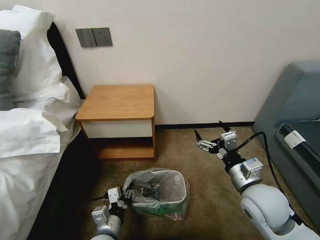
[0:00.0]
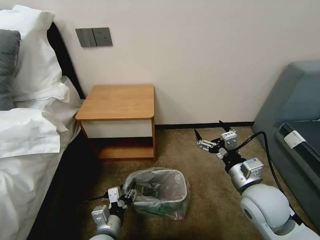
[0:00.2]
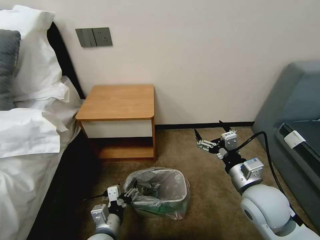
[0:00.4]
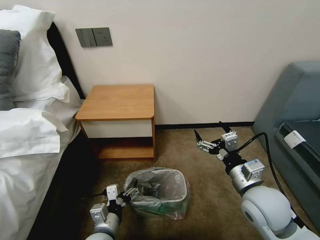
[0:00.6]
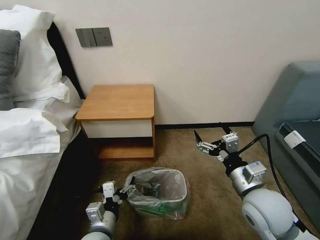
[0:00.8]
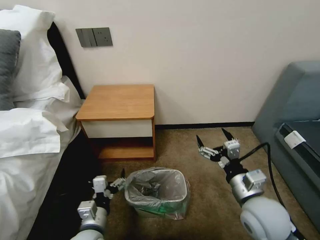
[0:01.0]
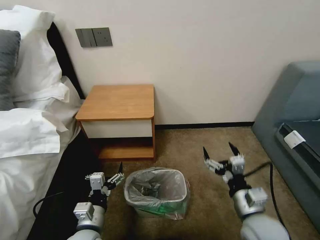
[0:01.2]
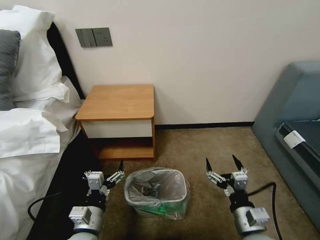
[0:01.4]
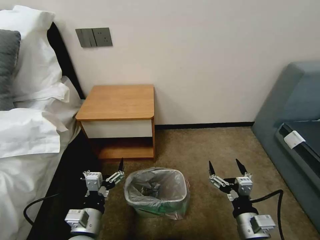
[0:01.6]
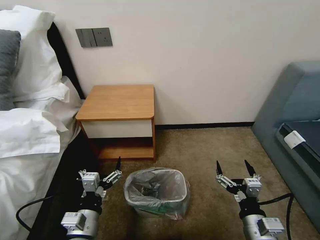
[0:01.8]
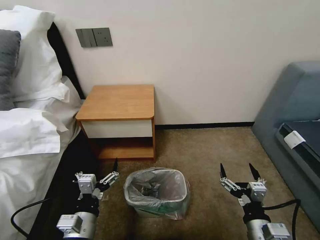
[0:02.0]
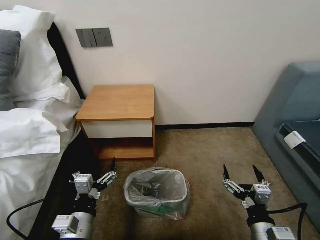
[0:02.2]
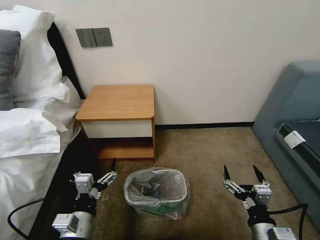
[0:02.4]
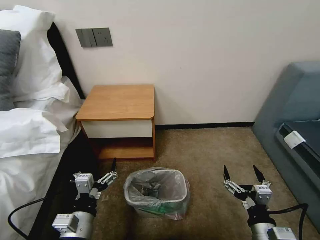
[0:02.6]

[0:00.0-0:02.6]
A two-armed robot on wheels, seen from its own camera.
Task of the whole recording: Pick up the garbage bag from the table and place it over the trash can.
0:00.0 to 0:01.2: The right gripper ends up about 5 cm from where it was. Meanwhile the left gripper opens its fingers.
0:01.2 to 0:02.6: The left gripper moves some 5 cm. The right gripper goes roughly 10 cm backward.

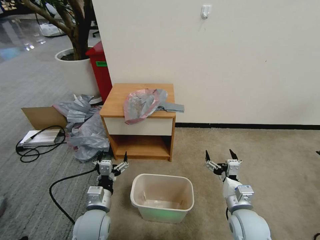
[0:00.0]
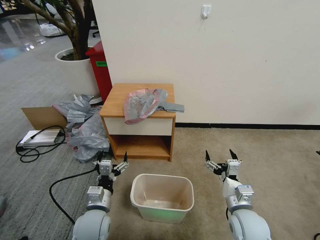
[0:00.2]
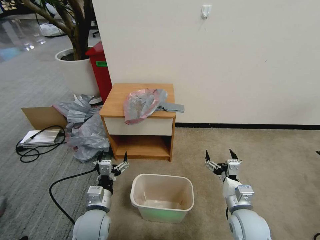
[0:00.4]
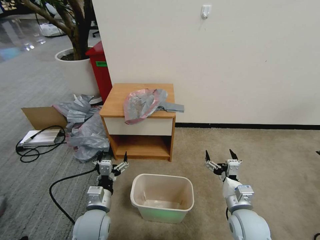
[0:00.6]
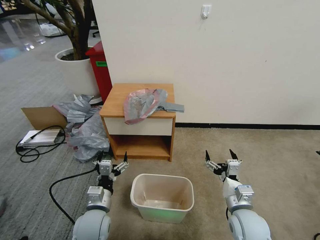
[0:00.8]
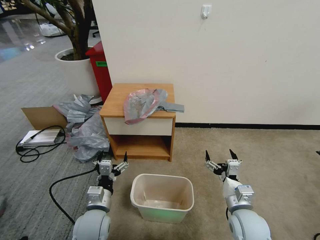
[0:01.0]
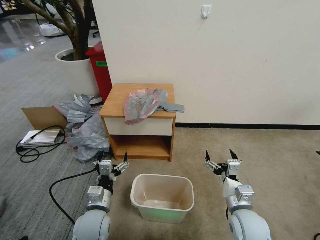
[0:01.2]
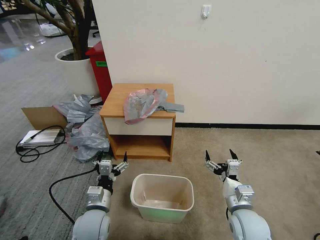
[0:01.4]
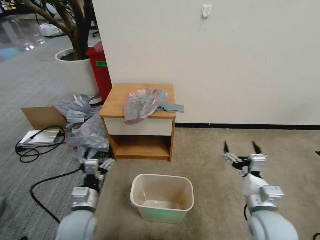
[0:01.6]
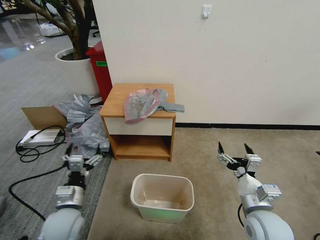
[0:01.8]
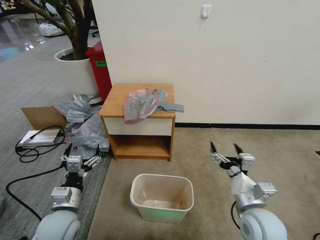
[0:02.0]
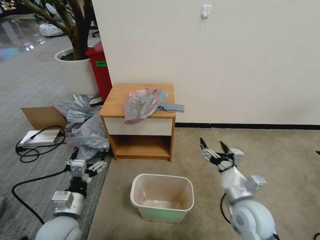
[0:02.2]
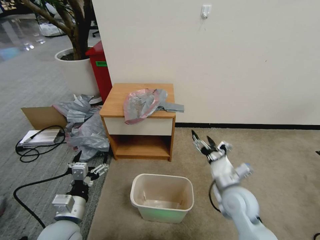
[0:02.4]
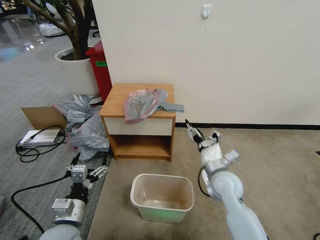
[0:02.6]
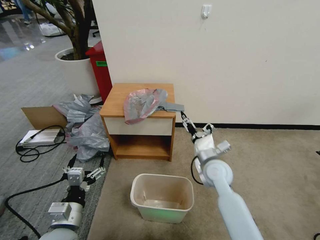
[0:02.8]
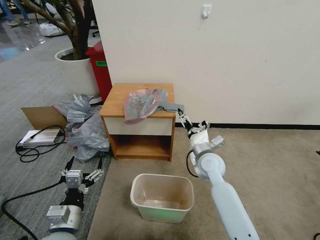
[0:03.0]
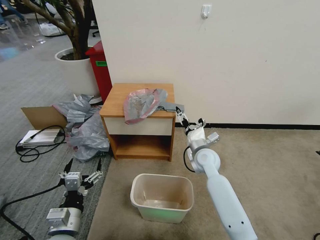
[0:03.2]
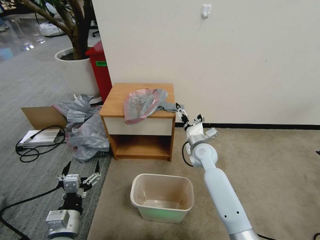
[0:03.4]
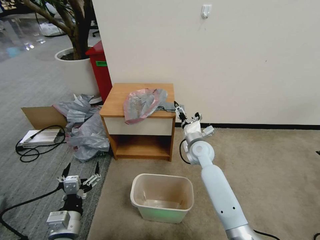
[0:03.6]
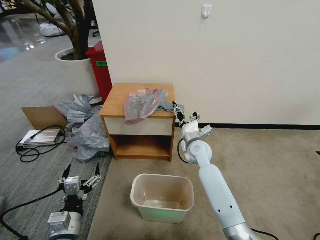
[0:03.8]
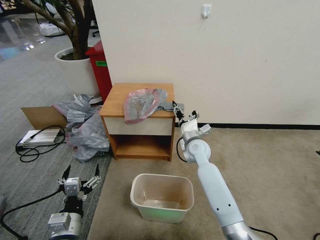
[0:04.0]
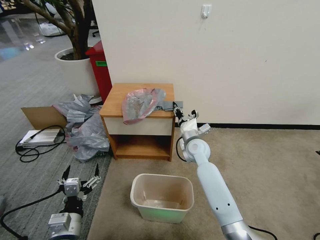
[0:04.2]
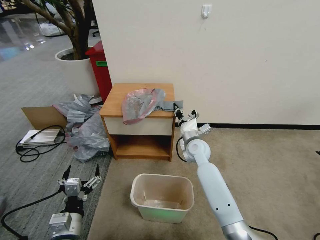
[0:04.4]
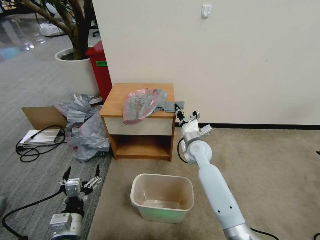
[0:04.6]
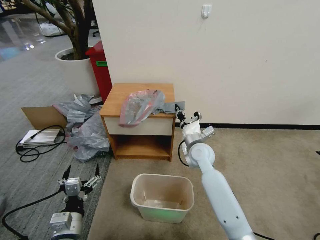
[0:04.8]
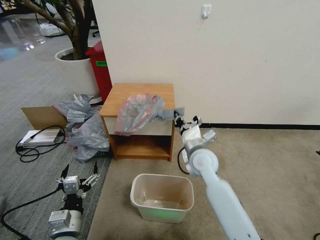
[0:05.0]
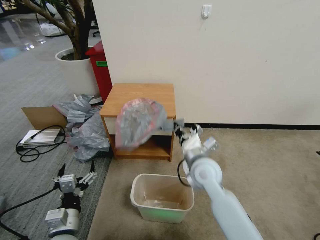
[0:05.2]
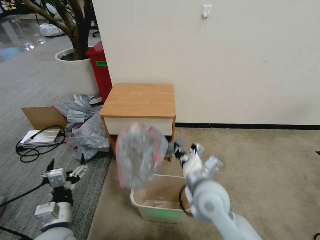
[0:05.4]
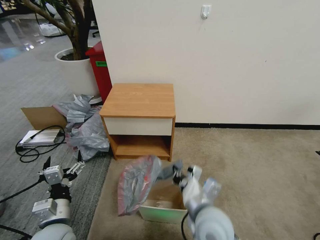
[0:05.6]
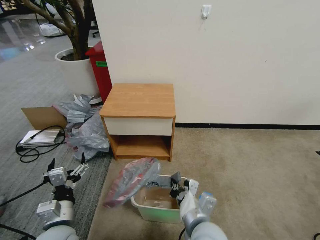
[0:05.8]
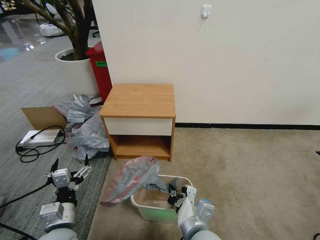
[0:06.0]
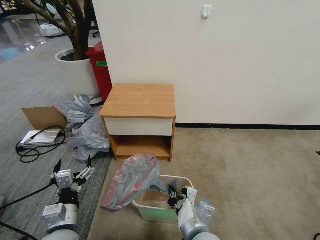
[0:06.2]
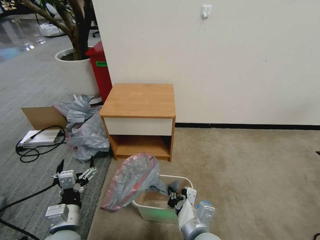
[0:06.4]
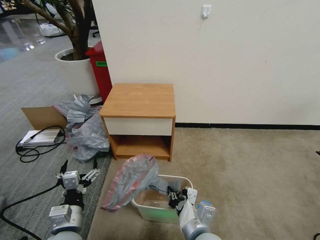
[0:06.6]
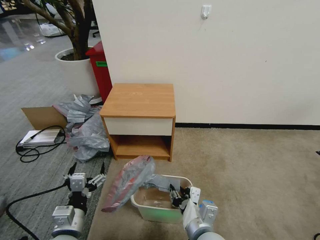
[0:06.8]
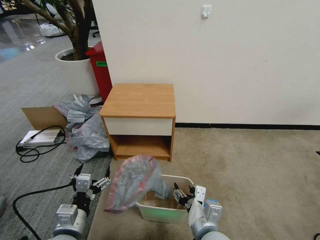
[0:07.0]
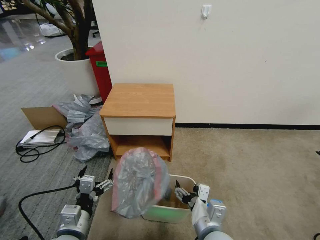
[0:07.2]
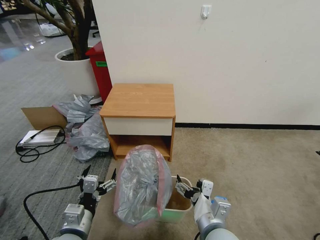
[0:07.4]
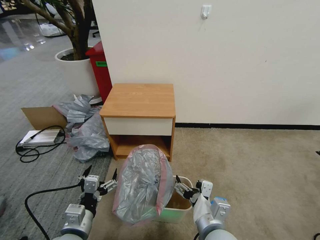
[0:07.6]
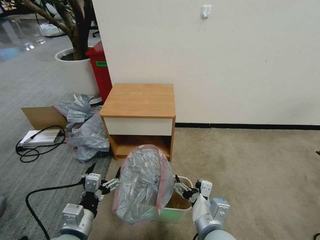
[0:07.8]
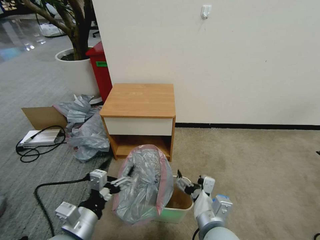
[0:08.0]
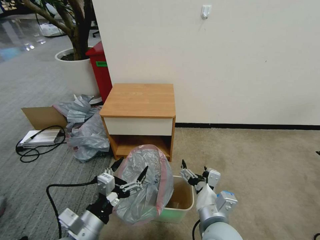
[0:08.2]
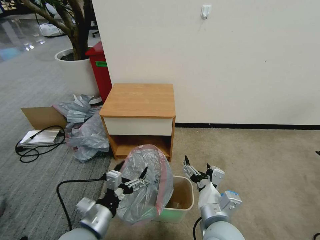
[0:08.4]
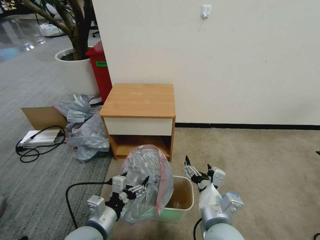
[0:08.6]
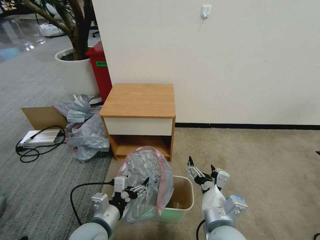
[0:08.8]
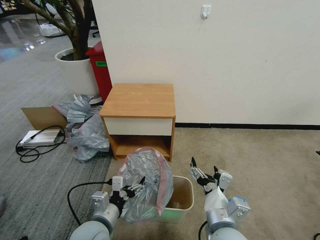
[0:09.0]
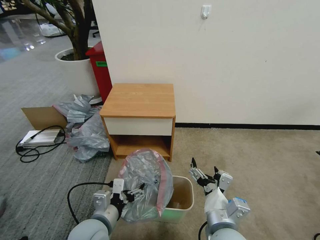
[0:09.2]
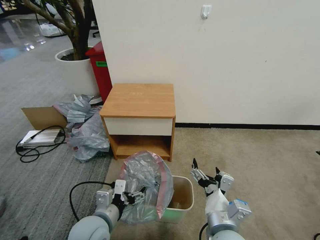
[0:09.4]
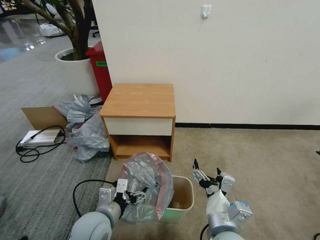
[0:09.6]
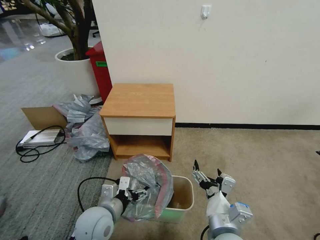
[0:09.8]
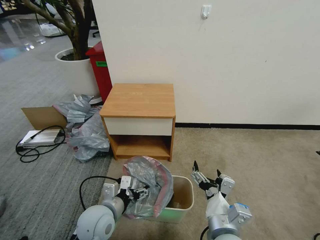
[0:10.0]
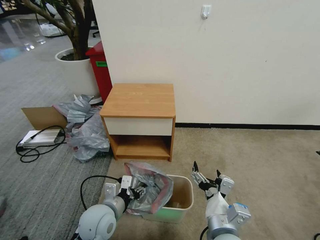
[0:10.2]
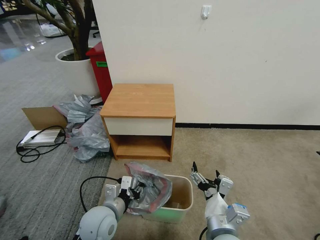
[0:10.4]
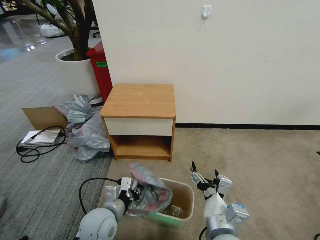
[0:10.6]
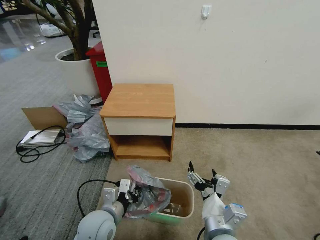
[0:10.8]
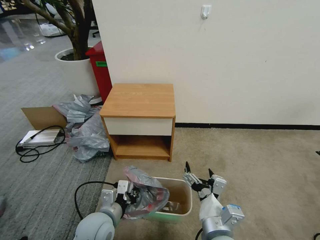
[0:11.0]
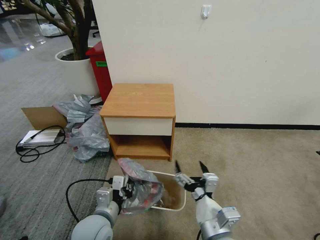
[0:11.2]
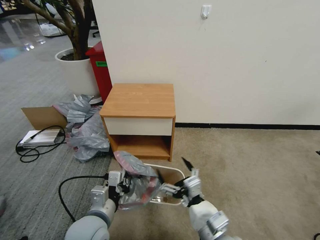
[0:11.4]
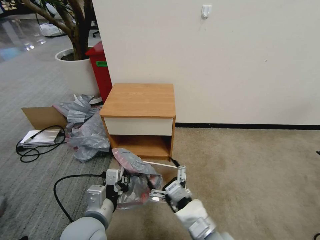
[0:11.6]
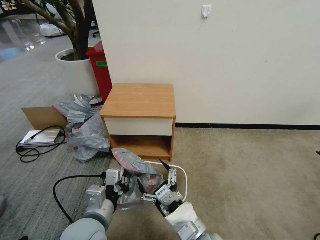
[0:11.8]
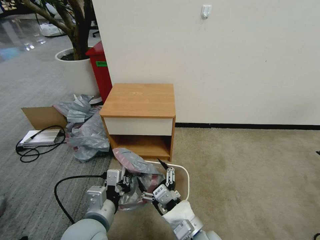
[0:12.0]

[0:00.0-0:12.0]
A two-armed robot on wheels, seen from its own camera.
Task of the whole recording: Pick up the garbage bag from the table and place it over the trash can.
0:01.6 to 0:03.0: The right gripper is displaced forward and to the left by approximately 20 cm; the left gripper heads backward, covering approximately 5 cm.
0:03.0 to 0:04.4: The right gripper goes roughly 5 cm forward, and closes.
0:04.4 to 0:06.0: The right gripper shifts about 30 cm backward.
0:06.0 to 0:07.6: The right gripper opens up.
0:07.6 to 0:09.0: The left gripper moves to the right, some 5 cm.
0:09.0 to 0:10.4: The left gripper closes its fingers.
0:10.4 to 0:12.0: The left gripper travels upward by some 10 cm, and closes its fingers, while the right gripper changes place by about 5 cm.

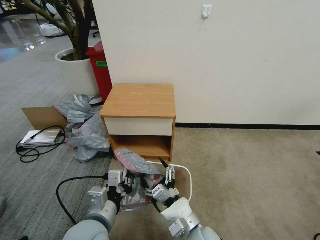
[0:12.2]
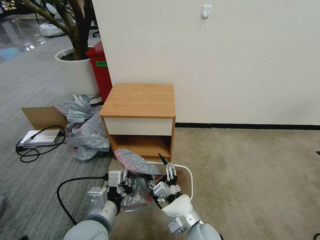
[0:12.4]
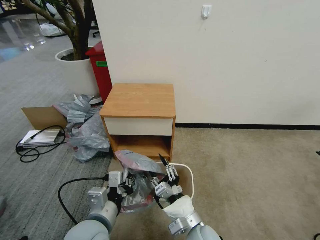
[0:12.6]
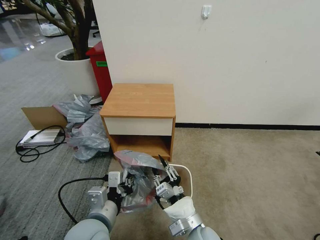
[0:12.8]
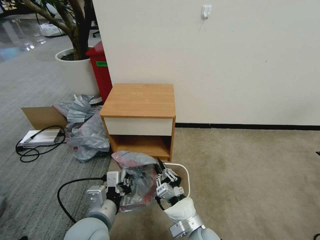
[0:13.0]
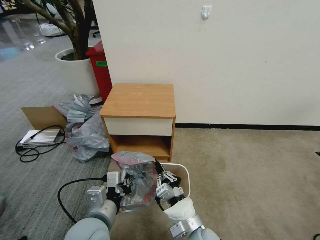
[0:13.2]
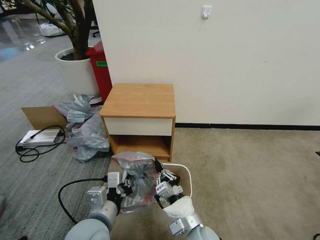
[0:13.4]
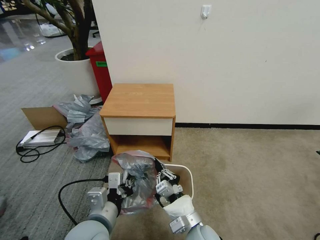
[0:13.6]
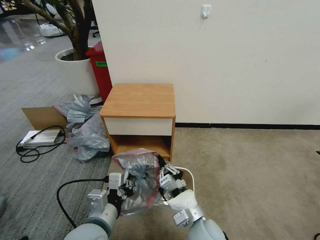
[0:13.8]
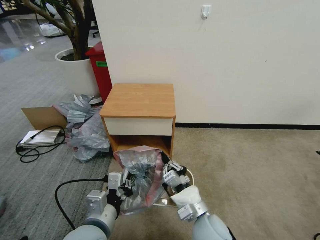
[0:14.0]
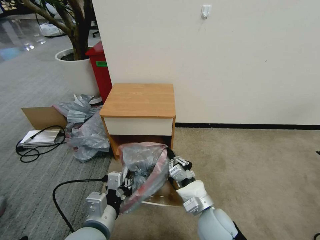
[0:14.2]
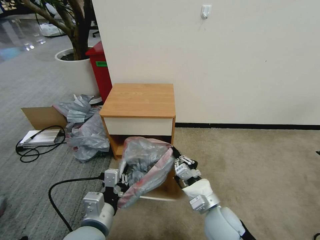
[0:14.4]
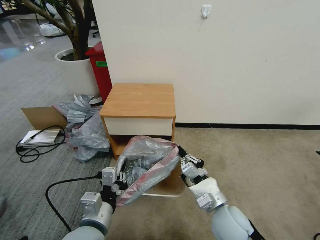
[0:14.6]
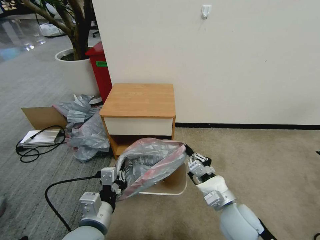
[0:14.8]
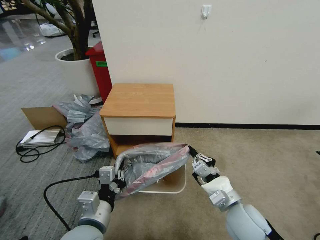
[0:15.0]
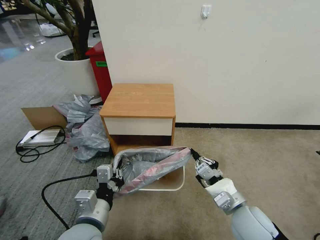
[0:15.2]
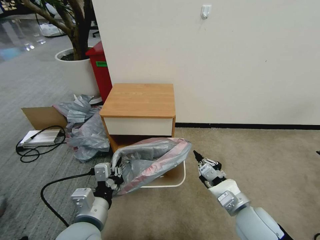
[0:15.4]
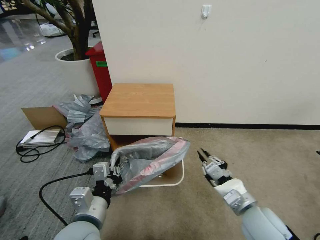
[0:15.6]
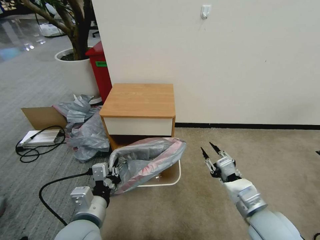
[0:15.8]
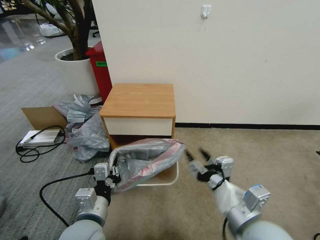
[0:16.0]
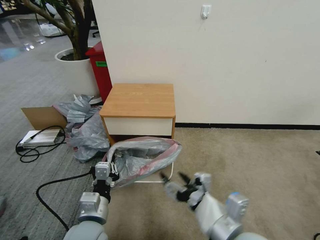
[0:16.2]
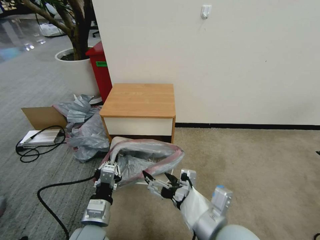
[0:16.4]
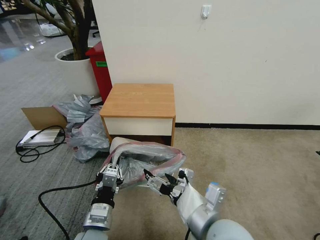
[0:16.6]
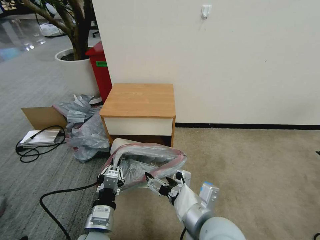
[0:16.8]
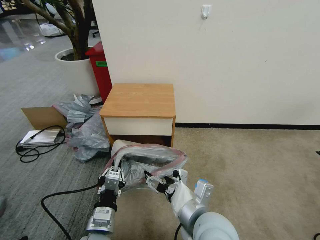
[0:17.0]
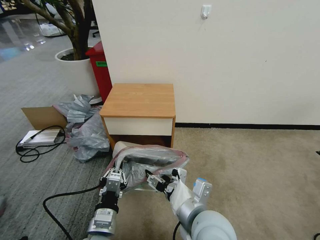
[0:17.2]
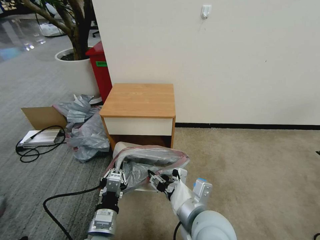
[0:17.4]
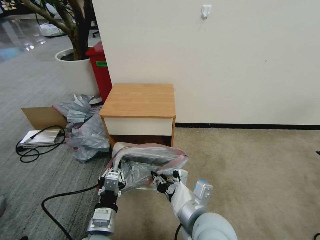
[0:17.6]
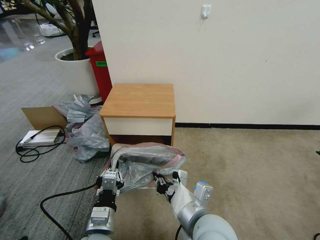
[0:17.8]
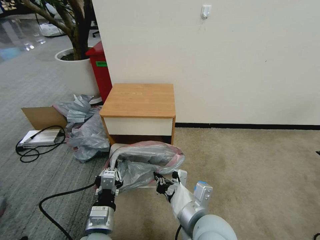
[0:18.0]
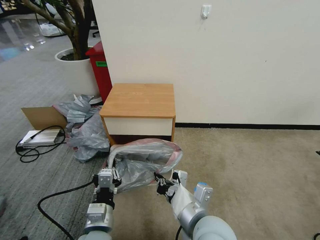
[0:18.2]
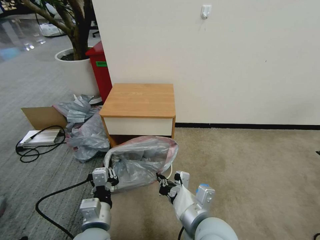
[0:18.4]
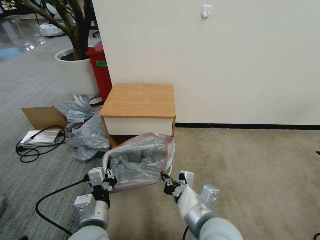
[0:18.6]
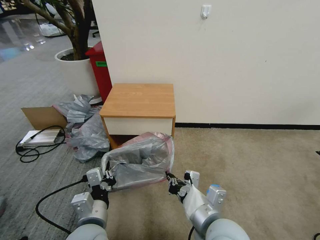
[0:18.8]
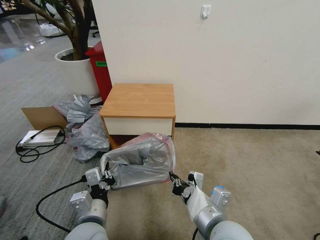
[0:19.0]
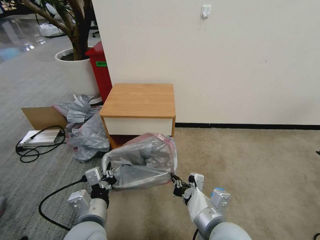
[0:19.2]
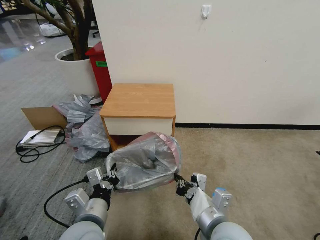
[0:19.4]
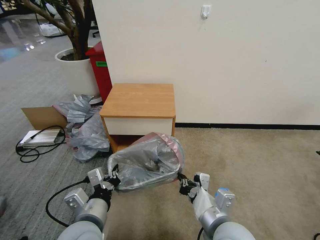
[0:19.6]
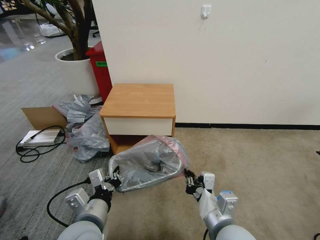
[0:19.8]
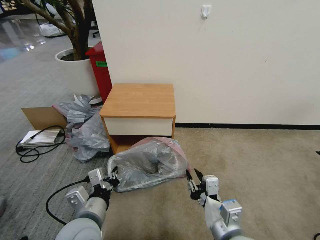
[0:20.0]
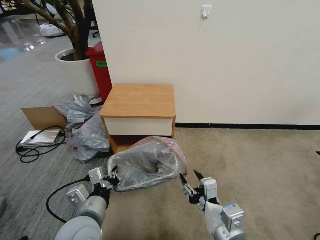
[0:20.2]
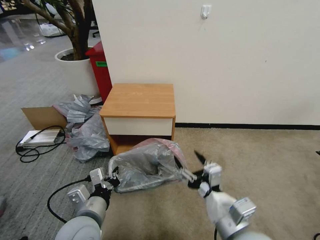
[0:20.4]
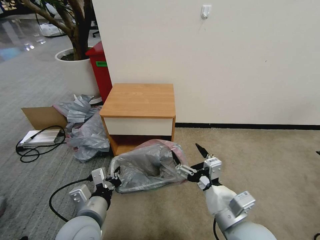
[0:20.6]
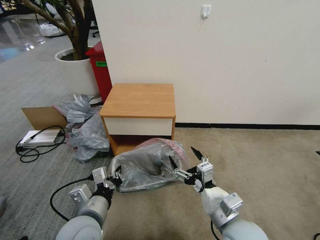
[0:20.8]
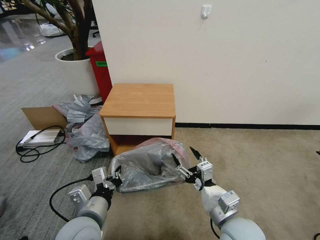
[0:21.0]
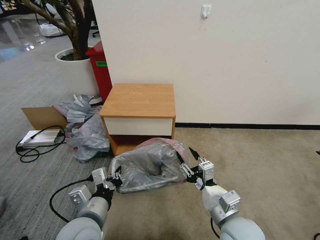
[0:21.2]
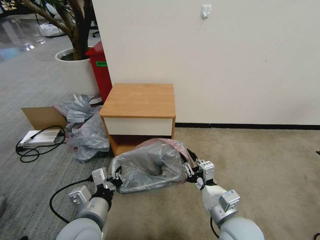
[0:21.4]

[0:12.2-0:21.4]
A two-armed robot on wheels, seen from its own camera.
Task of the whole recording: Pick up the garbage bag from the table and place it over the trash can.
0:12.2 to 0:13.8: The right gripper closes.
0:13.8 to 0:15.2: The right gripper moves to the right, approximately 10 cm.
0:15.2 to 0:16.8: The left gripper shifts approximately 5 cm downward. The right gripper is displaced to the left and upward by about 15 cm, and opens.
0:16.8 to 0:18.4: The right gripper closes.
0:18.4 to 0:19.8: The right gripper travels to the right by some 5 cm.
0:19.8 to 0:21.4: The right gripper opens and closes again.
